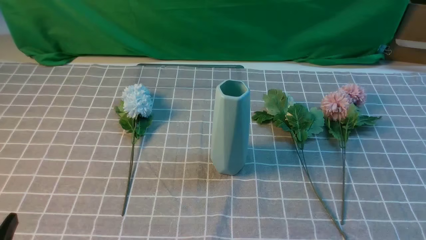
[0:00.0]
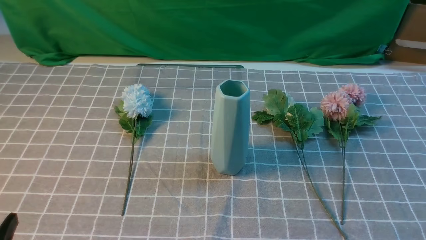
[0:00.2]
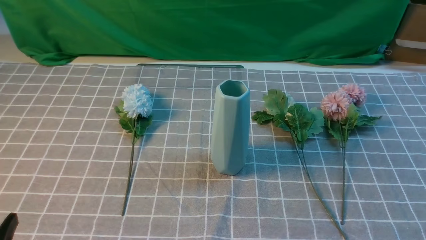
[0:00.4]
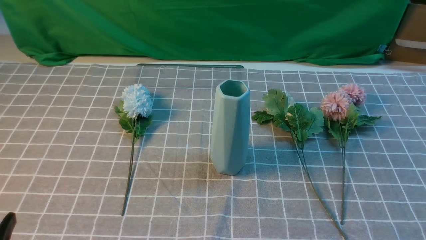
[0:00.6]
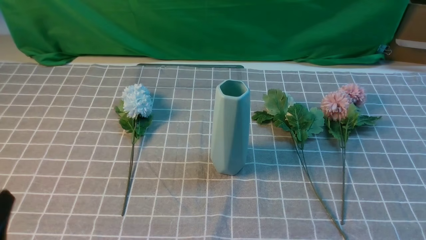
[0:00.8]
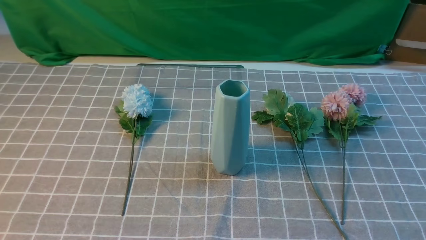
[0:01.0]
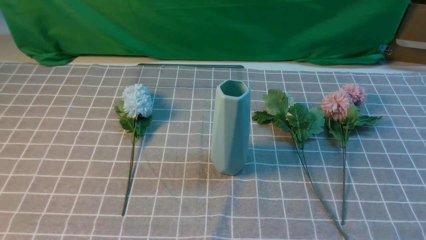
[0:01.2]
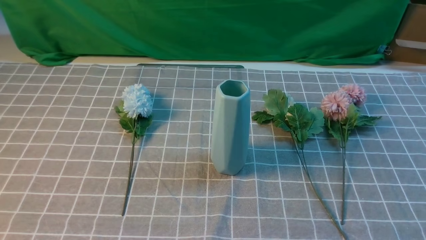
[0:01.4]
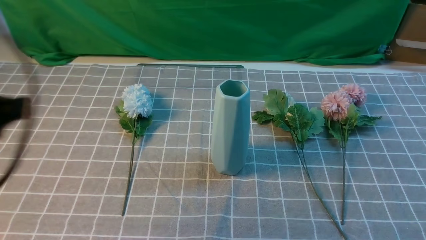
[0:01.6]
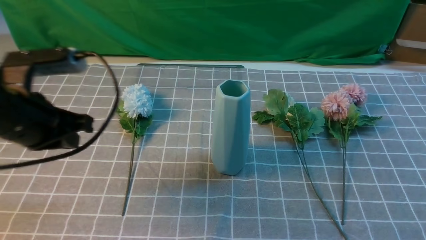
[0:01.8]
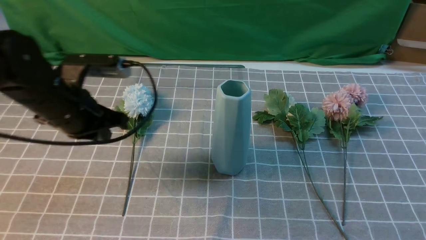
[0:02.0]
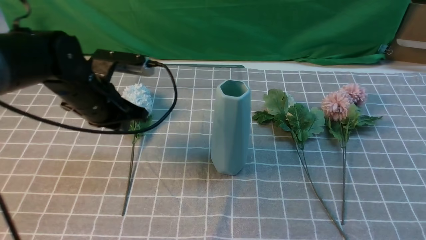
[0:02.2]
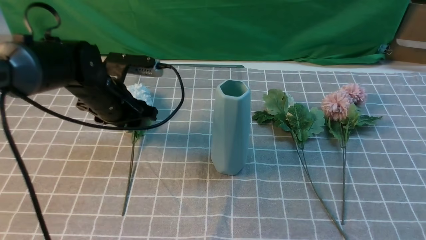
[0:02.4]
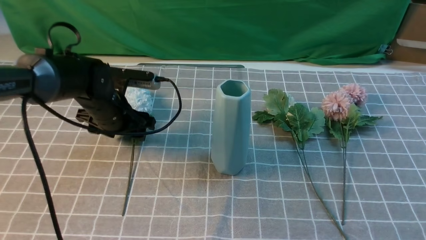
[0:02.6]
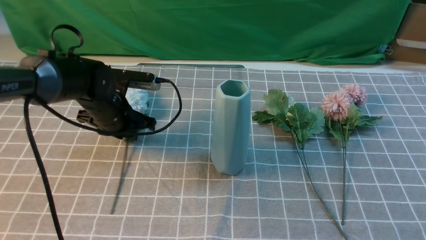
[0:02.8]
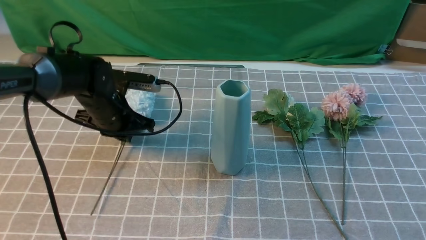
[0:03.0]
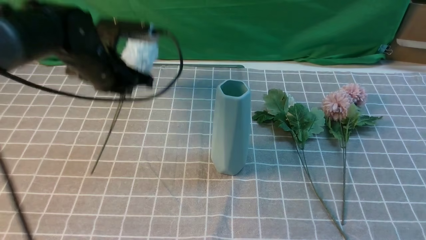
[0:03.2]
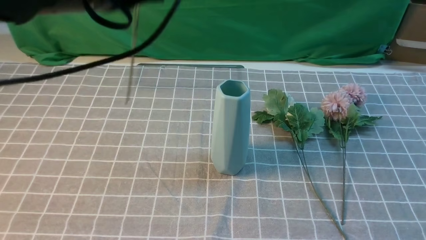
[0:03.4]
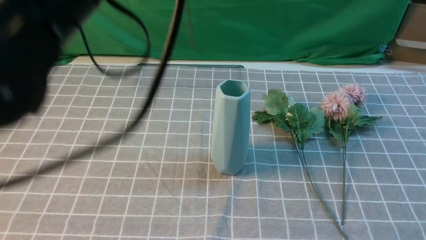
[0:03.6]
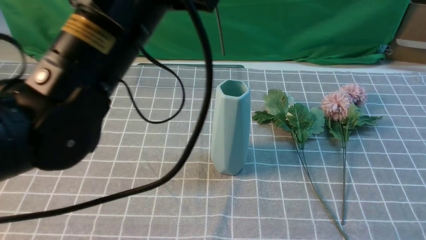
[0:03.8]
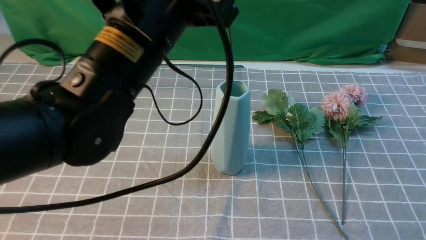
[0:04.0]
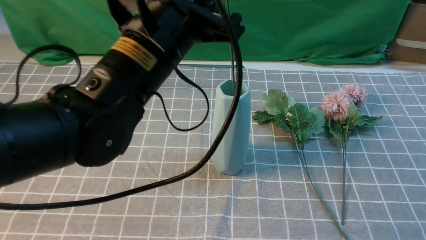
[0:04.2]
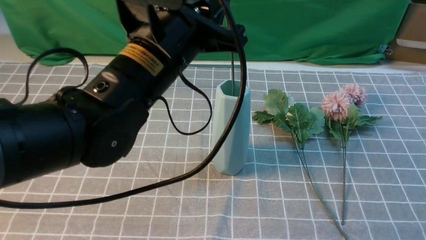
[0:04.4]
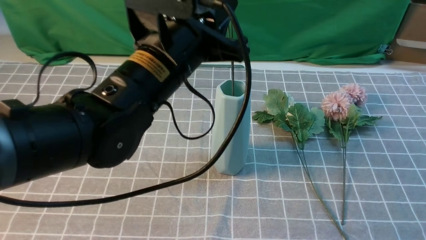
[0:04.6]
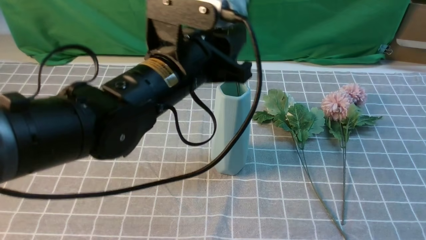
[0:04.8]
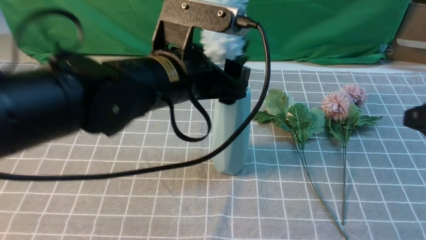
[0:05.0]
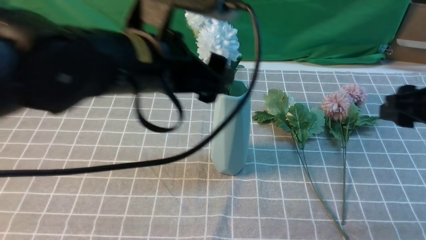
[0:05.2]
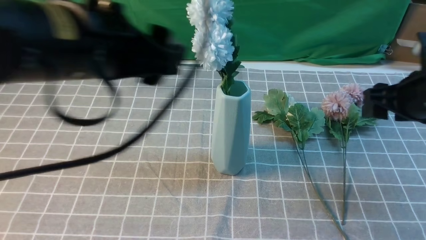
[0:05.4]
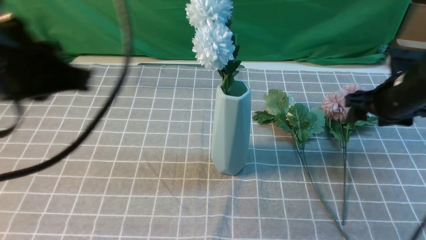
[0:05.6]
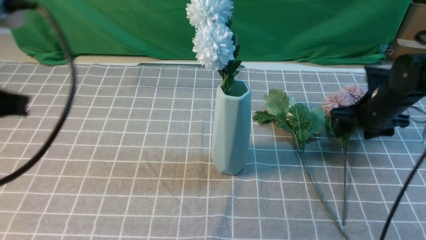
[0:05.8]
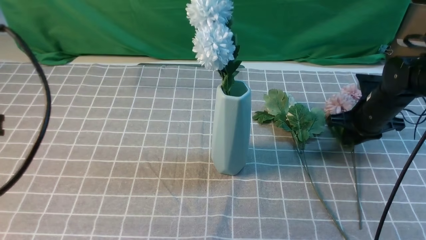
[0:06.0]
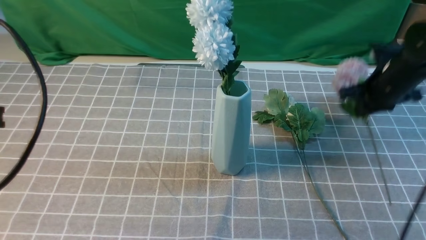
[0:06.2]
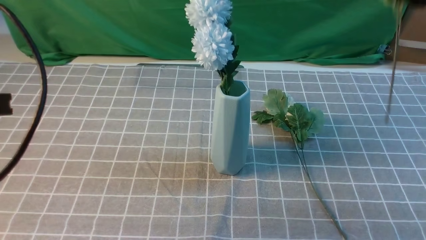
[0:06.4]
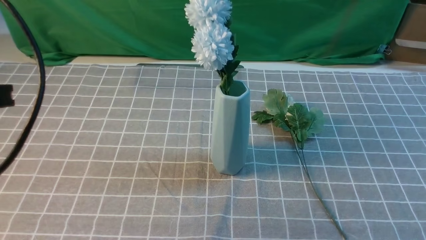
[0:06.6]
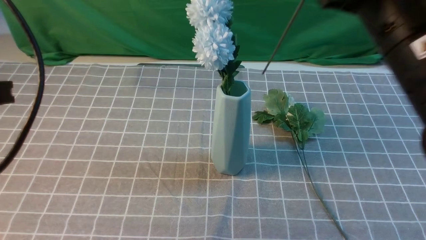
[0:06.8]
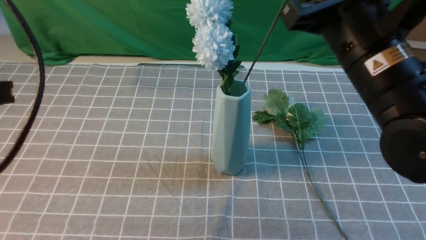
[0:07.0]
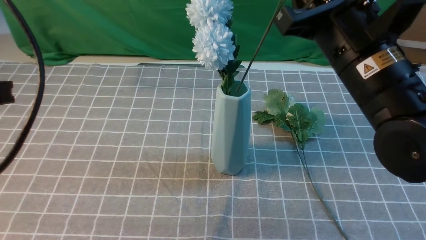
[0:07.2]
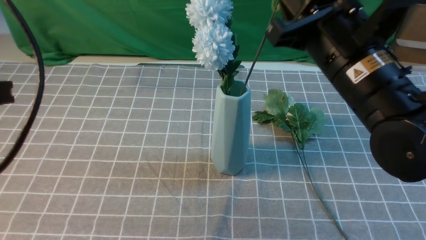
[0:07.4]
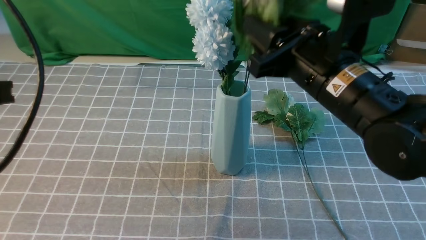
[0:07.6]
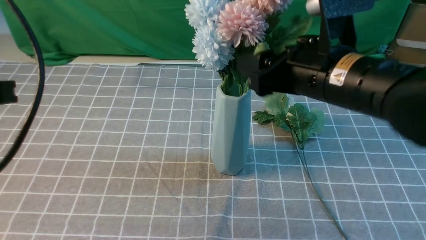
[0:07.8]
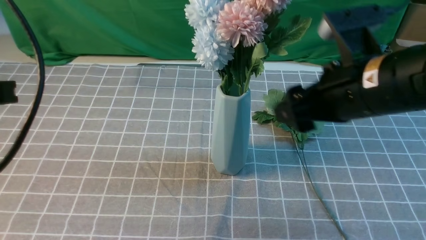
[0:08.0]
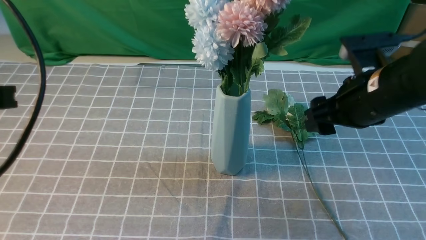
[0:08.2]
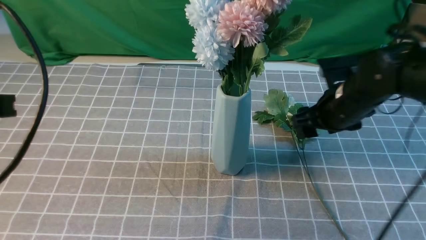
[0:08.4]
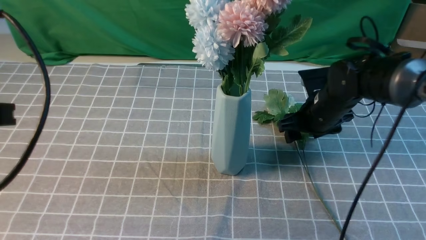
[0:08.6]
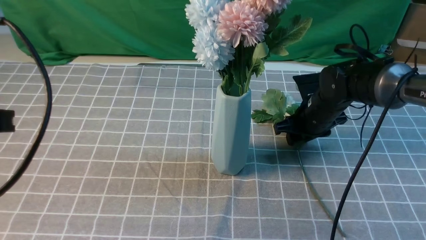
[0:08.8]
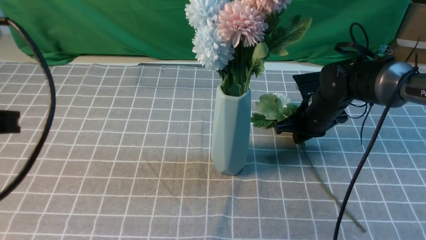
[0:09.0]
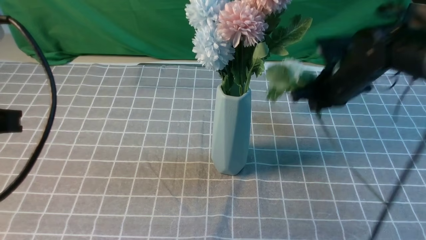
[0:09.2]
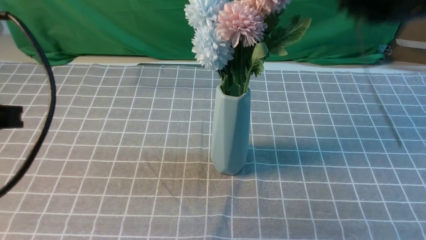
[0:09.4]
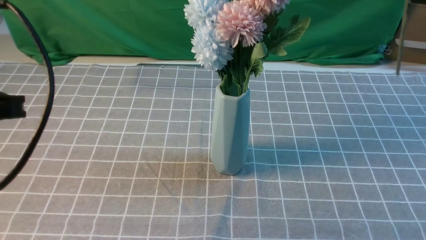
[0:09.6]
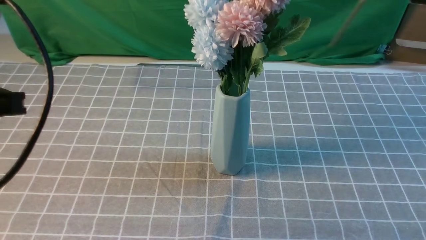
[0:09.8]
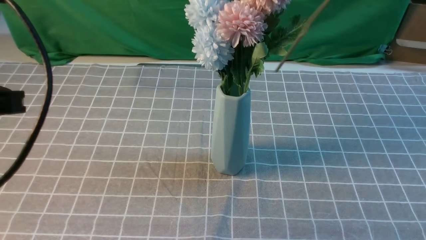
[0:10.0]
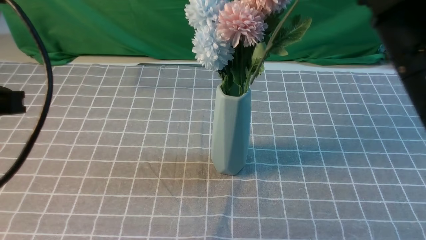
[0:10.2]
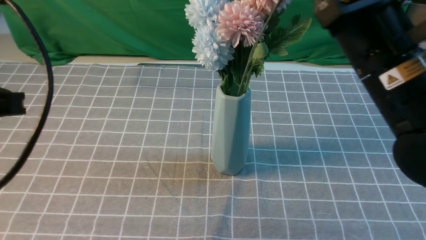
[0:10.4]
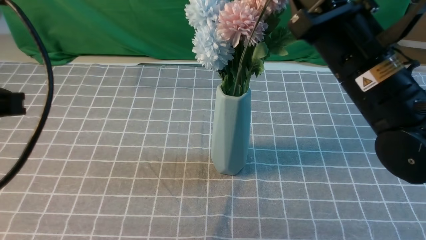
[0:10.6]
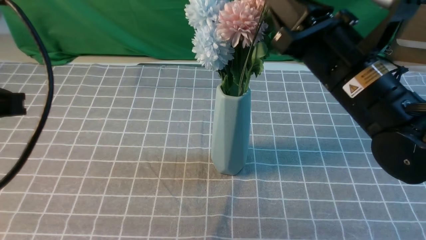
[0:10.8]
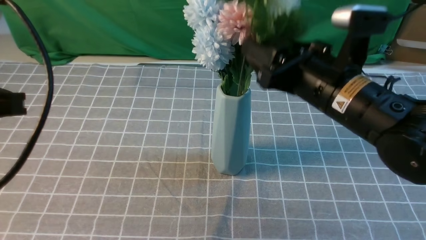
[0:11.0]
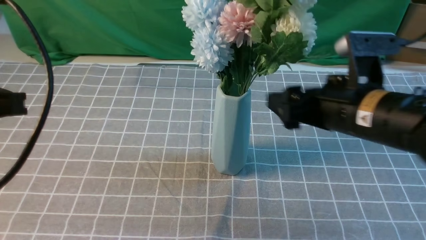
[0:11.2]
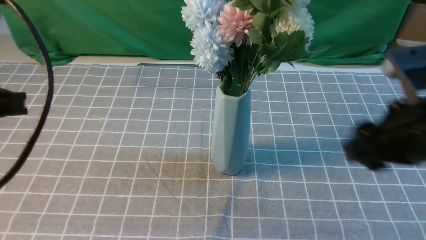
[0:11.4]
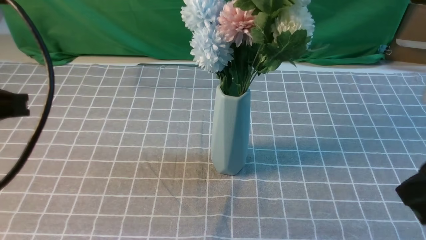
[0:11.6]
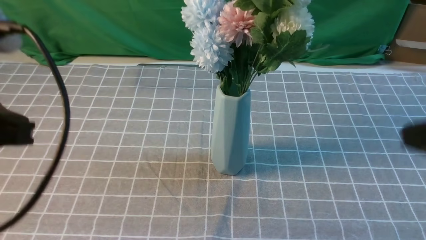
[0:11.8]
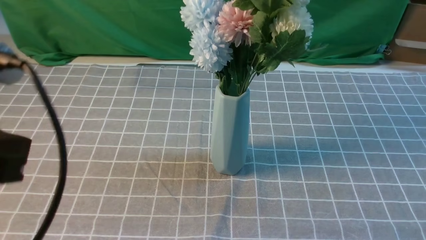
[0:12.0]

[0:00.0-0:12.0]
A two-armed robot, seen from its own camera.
Task of the whole recording: insert the flowers into the vase on the table with the grey tablecloth.
Step, 0:00.0 to 0:02.8: use the left arm to grab a bunch of fresh flowers.
Step, 0:03.2 to 0:05.0: use the left arm to insert the flowers into the vase.
Step, 0:05.4 to 0:06.0: use the right arm to grab a bunch of fresh flowers.
Step, 0:06.2 to 0:07.8: use the right arm to insert the flowers into the vase.
Step, 0:08.0 to 0:09.0: use the right arm to grab a bunch of fresh flowers.
Step, 0:09.2 to 0:11.2: use the right arm to insert the flowers into the vase.
0:00.0 to 0:01.6: The left gripper goes roughly 20 cm upward and forward, and closes.
0:01.6 to 0:03.0: The left gripper heads forward and downward, covering roughly 25 cm, and opens, then closes again. Meanwhile the right gripper travels upward and forward by approximately 15 cm, and closes its fingers.
0:03.0 to 0:04.4: The left gripper goes roughly 20 cm upward, backward and to the right.
0:04.4 to 0:06.0: The right gripper is displaced forward and downward by about 35 cm, and opens, then closes again; the left gripper heads to the left and backward, covering about 20 cm, and opens, then closes once more.
0:06.0 to 0:07.6: The right gripper is displaced to the left, upward and backward by approximately 25 cm, and closes, then reopens.
0:07.6 to 0:09.0: The right gripper goes some 20 cm downward, forward and to the right, and closes up.
0:09.0 to 0:10.4: The right gripper moves upward and backward, approximately 25 cm.
0:10.4 to 0:12.0: The right gripper moves backward and to the right, roughly 20 cm, and opens, then closes once more.

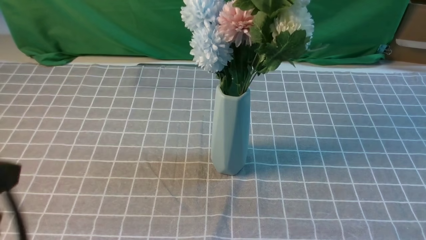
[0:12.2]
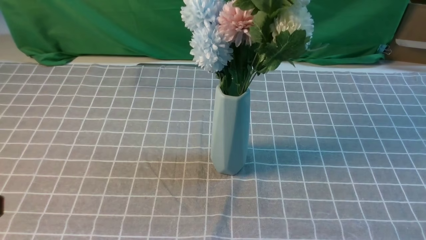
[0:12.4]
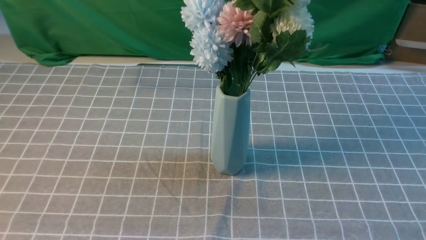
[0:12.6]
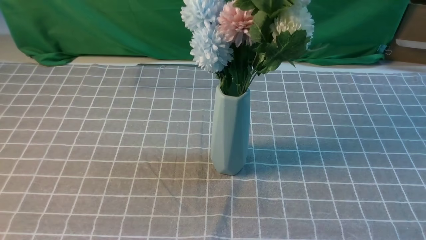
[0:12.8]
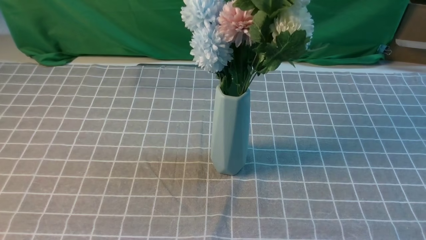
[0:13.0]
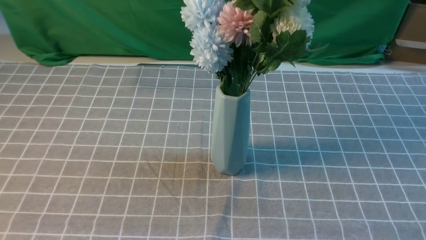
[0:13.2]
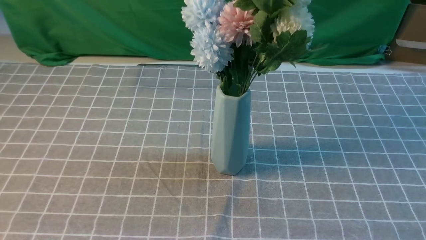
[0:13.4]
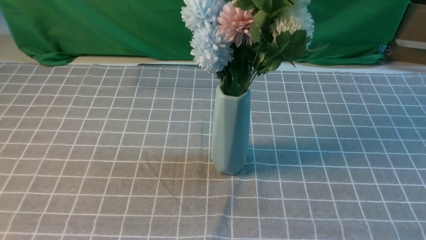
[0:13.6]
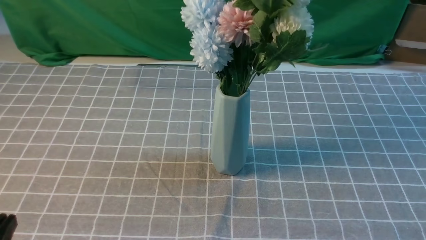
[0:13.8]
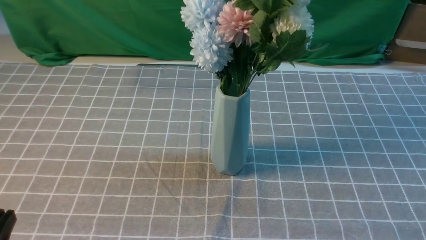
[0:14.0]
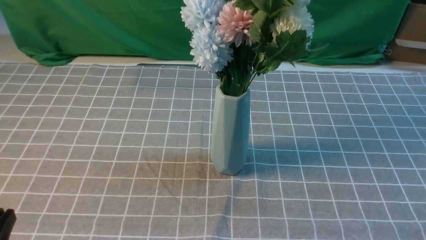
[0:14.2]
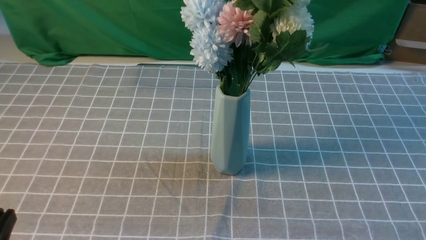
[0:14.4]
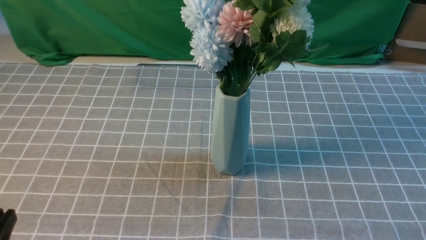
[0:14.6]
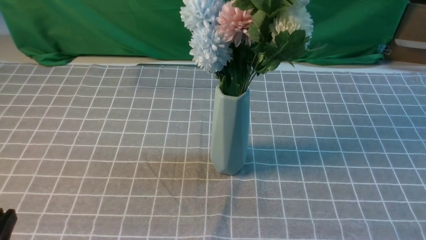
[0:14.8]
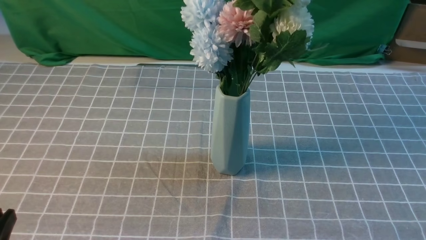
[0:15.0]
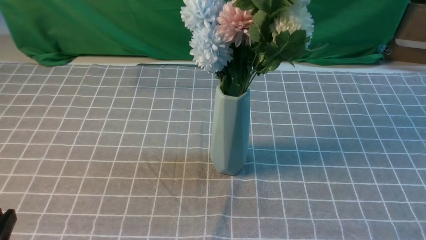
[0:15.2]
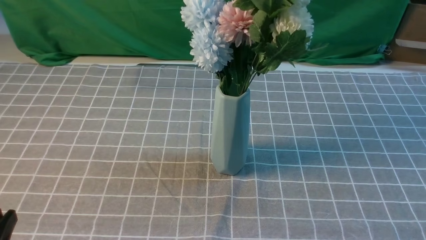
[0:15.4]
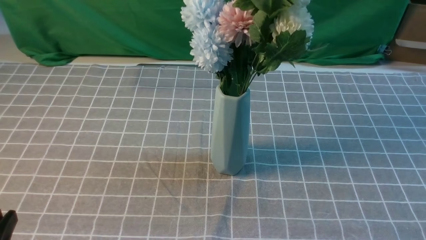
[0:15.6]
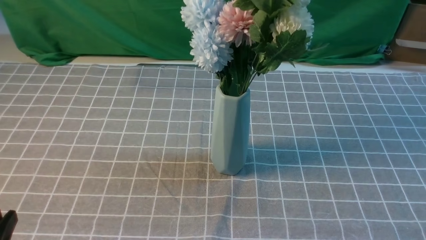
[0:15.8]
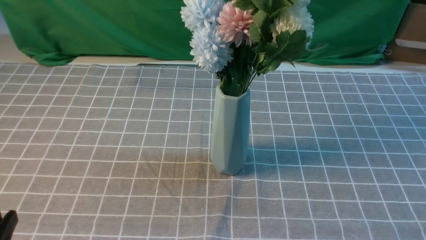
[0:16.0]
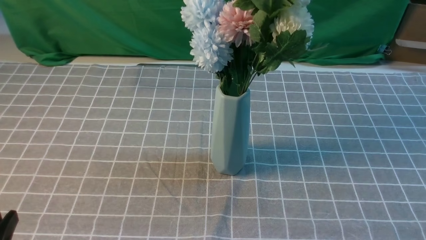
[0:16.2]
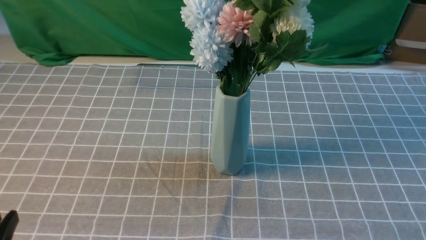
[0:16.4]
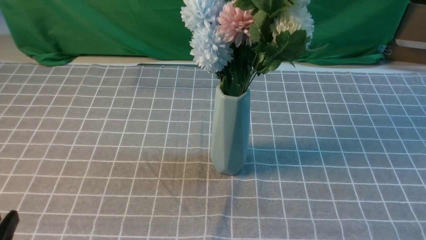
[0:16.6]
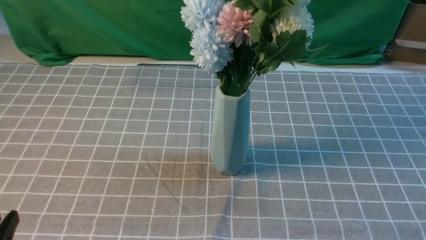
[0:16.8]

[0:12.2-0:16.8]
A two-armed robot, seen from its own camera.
Task of the whole recording: insert the flowers into the vase on the table with the grey tablecloth.
0:12.2 to 0:13.8: The left gripper travels downward by approximately 15 cm.
